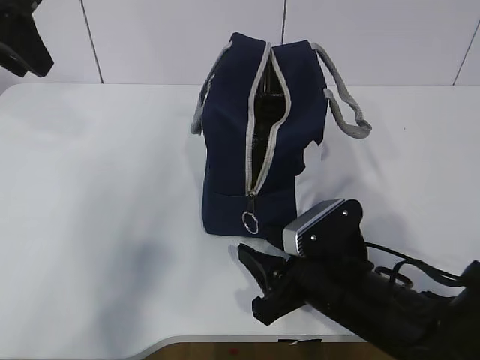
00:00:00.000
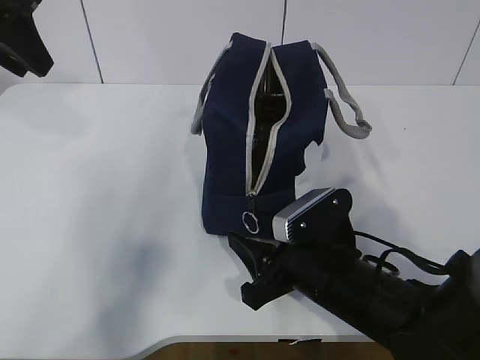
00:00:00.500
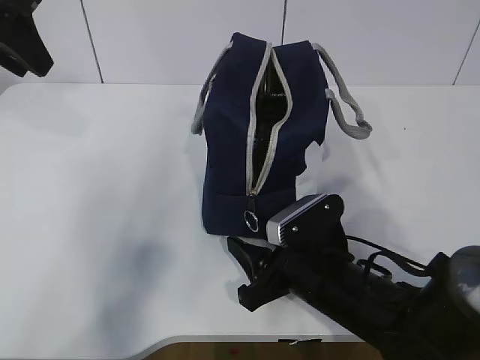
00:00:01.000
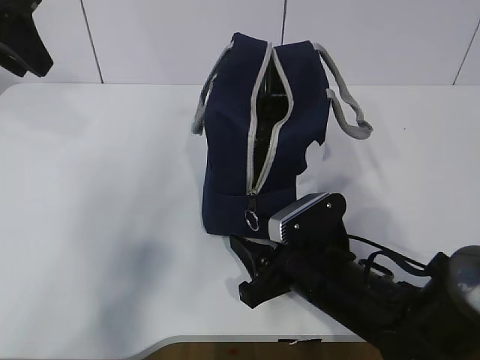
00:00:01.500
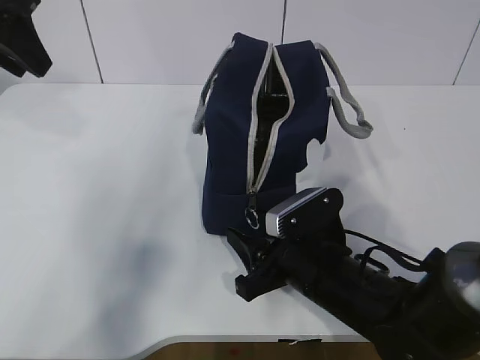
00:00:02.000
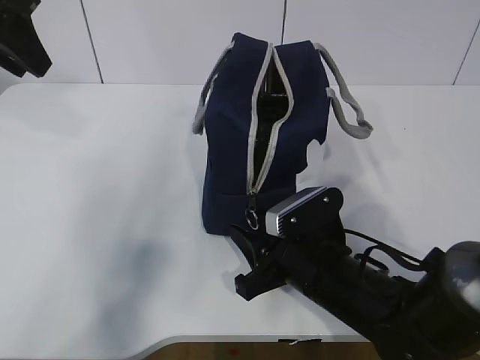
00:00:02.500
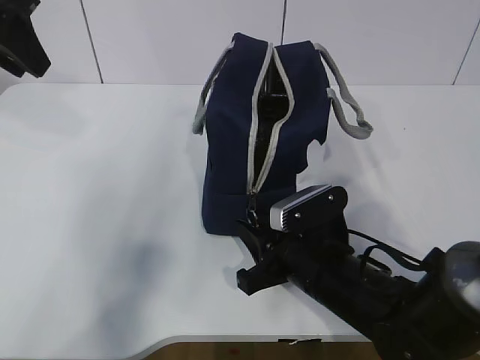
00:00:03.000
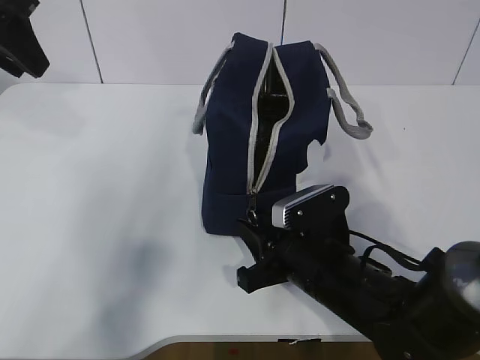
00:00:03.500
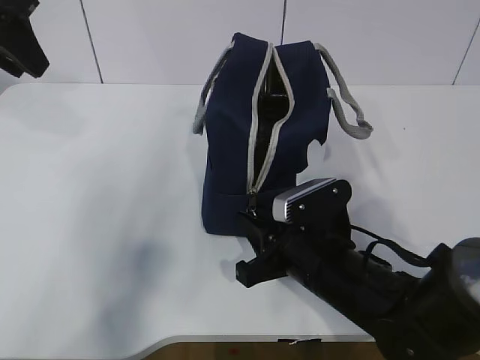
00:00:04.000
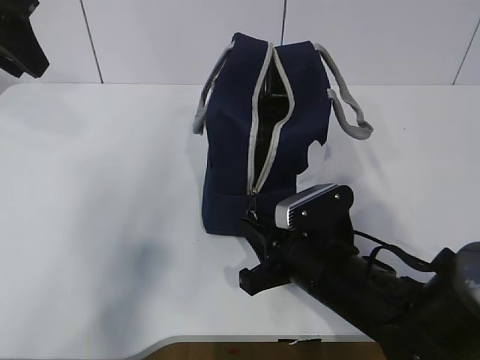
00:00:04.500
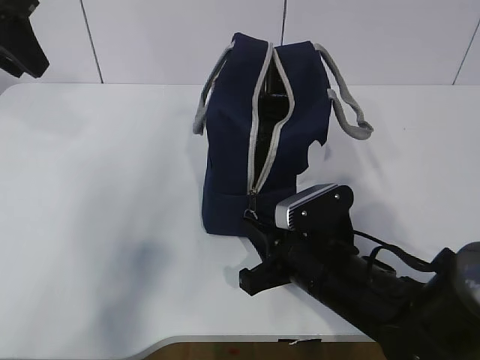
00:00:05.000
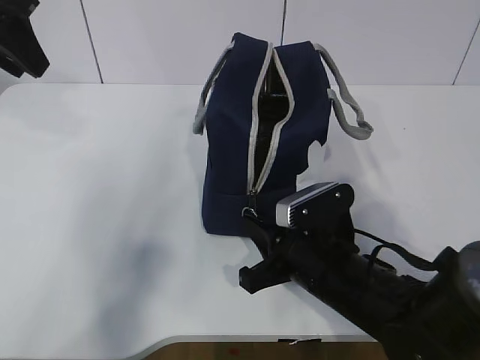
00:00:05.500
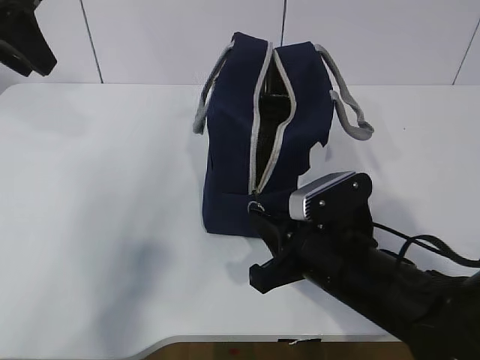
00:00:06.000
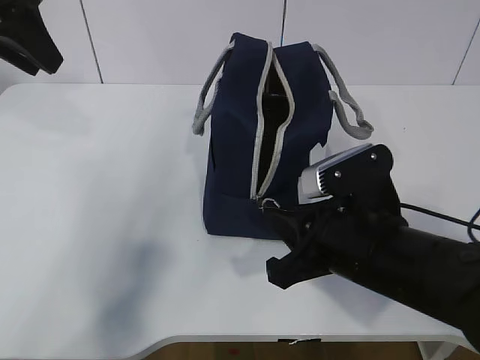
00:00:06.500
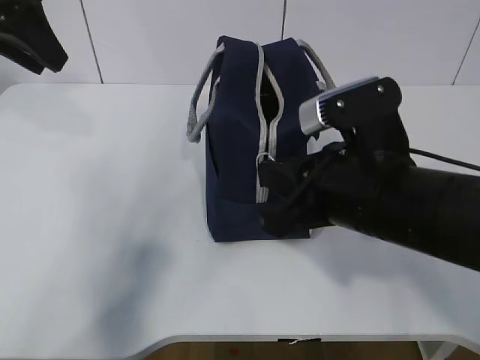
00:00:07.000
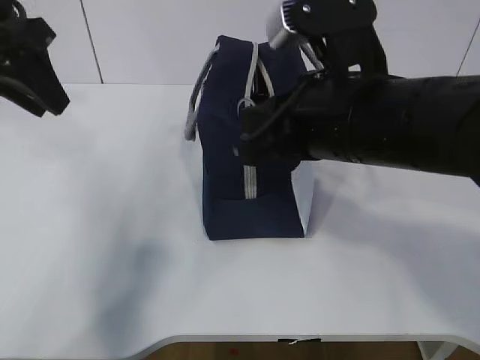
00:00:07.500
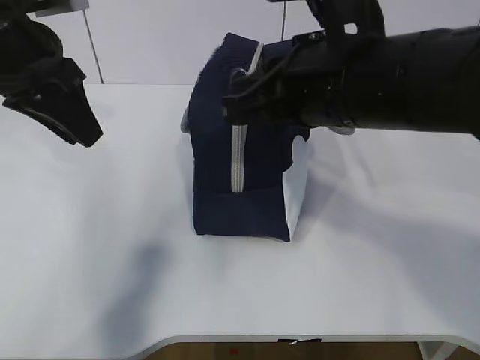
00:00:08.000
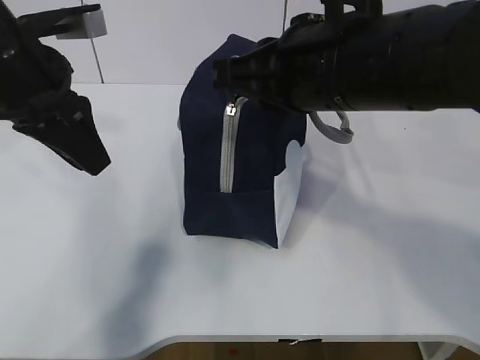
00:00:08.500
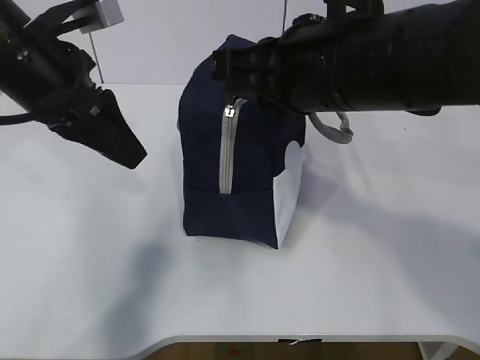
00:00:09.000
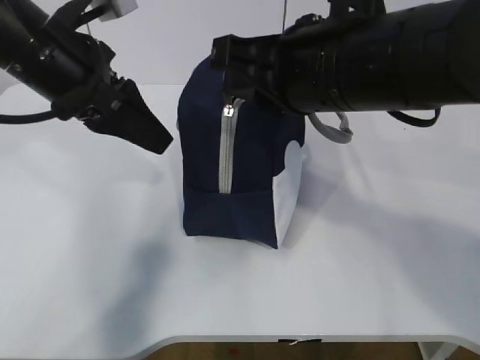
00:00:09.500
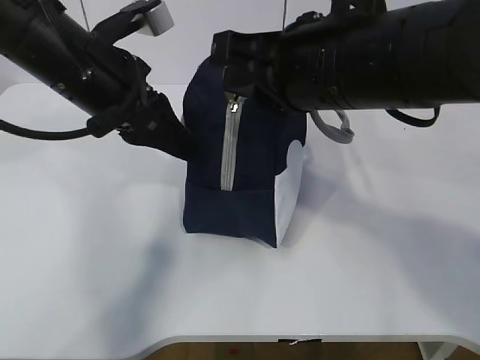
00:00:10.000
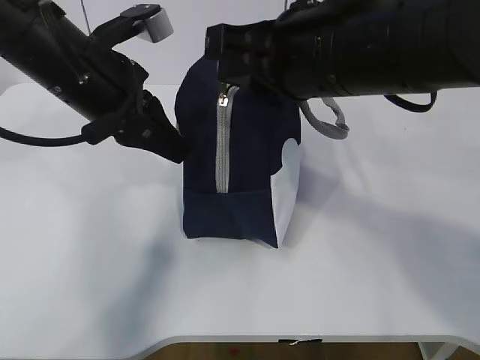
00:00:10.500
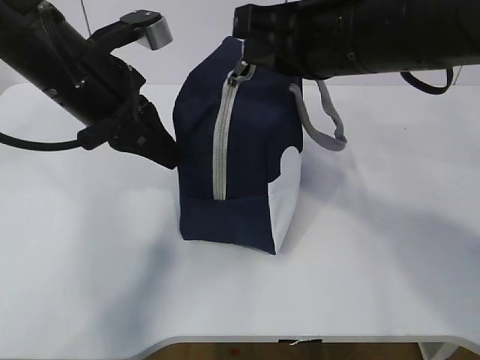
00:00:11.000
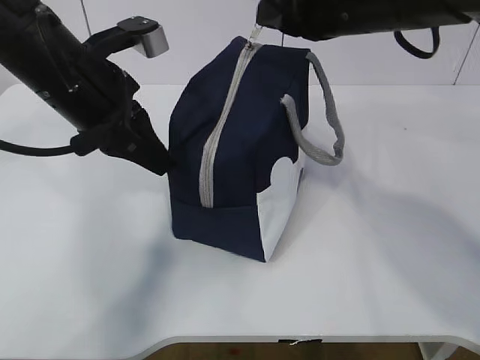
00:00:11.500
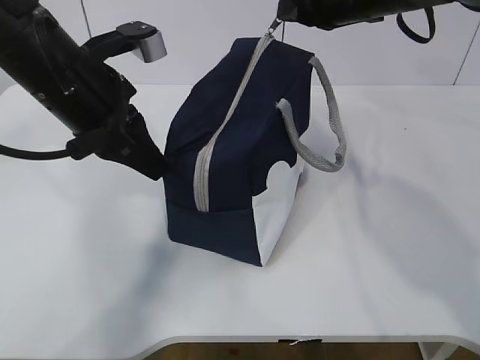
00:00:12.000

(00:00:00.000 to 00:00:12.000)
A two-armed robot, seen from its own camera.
Step, 00:00:03.000 - 00:00:06.500: Pull the zipper with your right hand.
00:00:00.000 - 00:00:02.000: There are only small adjustments of the grippers.
00:00:02.000 - 00:00:04.000: The right gripper closes.
00:00:04.000 - 00:00:06.000: The grippers move only a little.
00:00:06.000 - 00:00:08.000: The left gripper moves downward, roughly 5 cm. Meanwhile the right gripper heads upward, covering roughly 20 cm.
00:00:08.000 - 00:00:10.000: The left gripper is displaced to the right by about 5 cm.
00:00:10.000 - 00:00:12.000: The right gripper moves forward and to the right, some 15 cm. The left gripper closes its fingers.

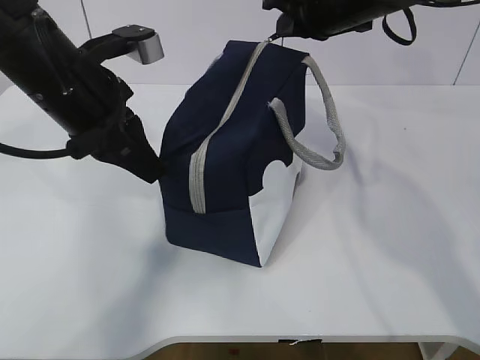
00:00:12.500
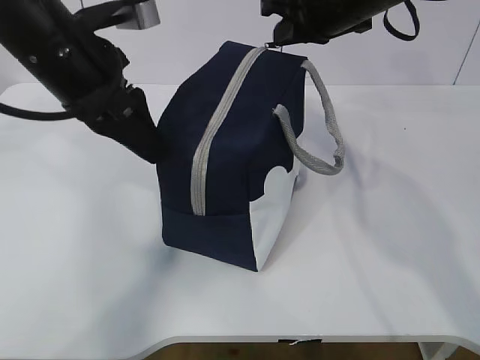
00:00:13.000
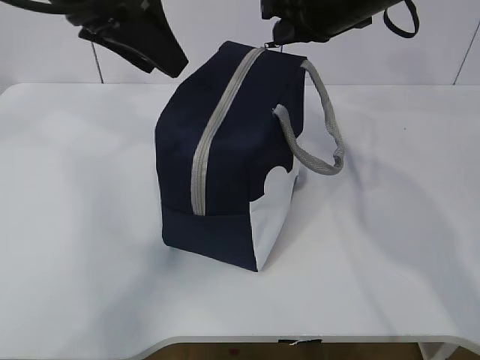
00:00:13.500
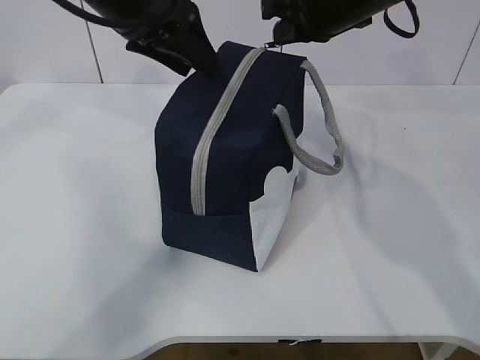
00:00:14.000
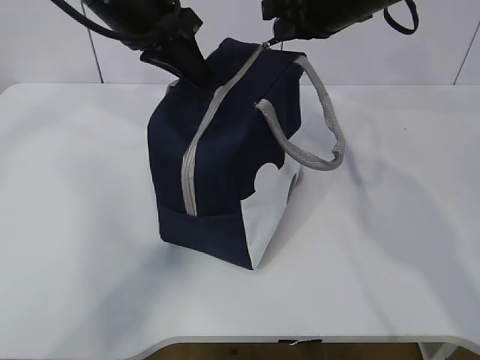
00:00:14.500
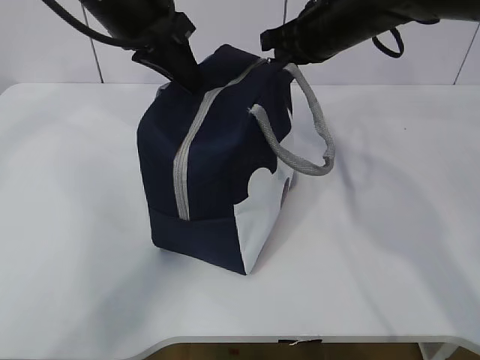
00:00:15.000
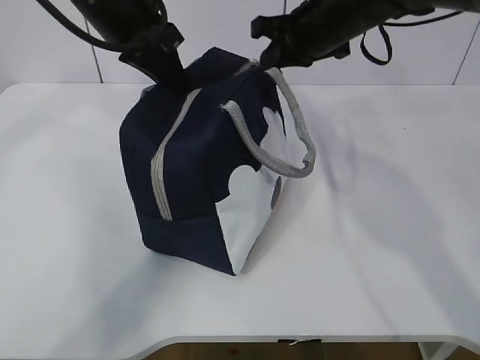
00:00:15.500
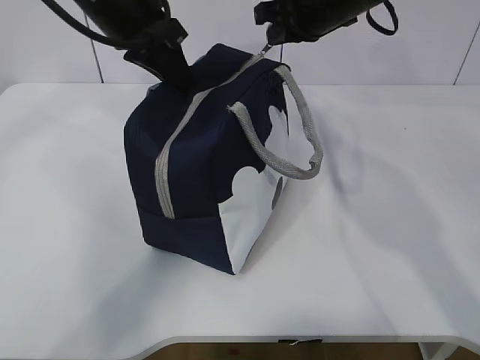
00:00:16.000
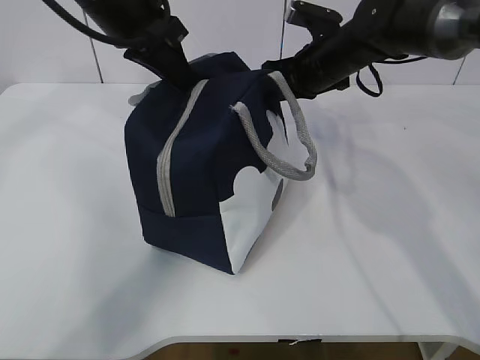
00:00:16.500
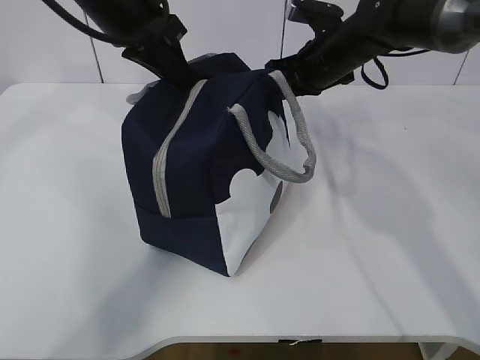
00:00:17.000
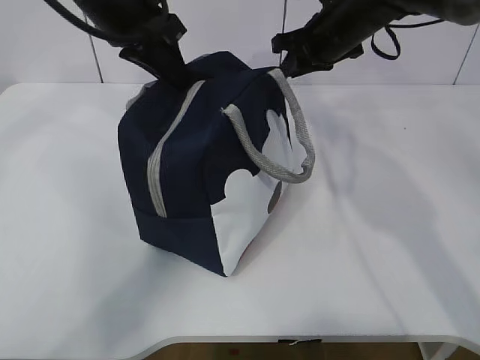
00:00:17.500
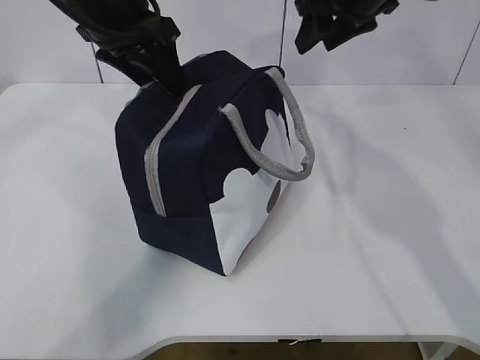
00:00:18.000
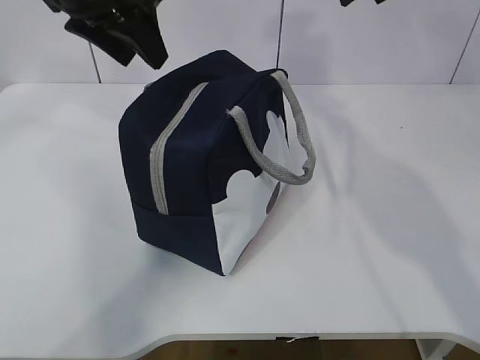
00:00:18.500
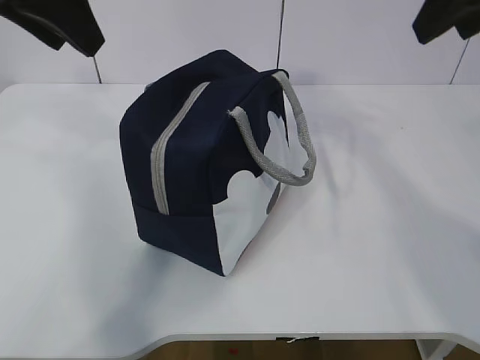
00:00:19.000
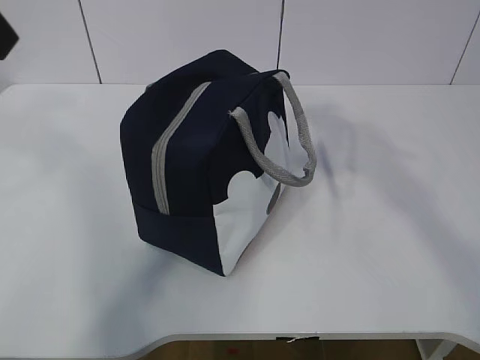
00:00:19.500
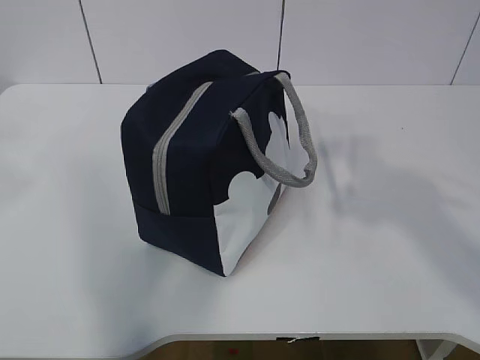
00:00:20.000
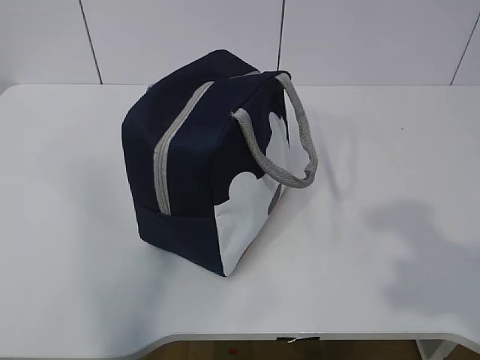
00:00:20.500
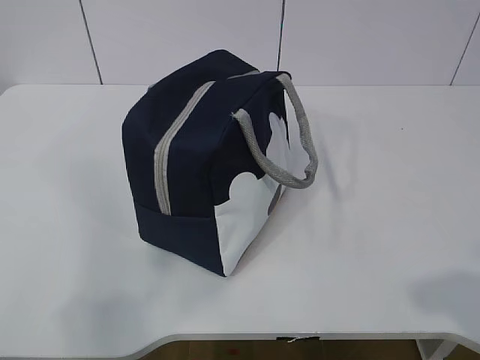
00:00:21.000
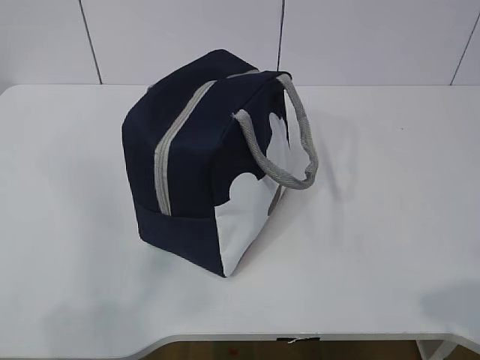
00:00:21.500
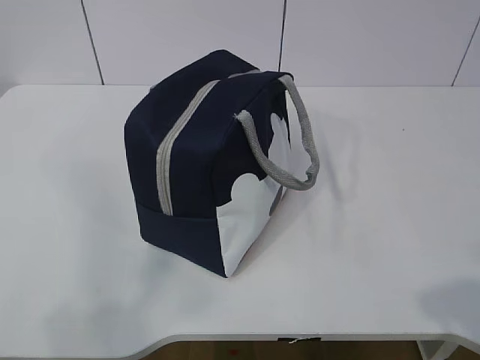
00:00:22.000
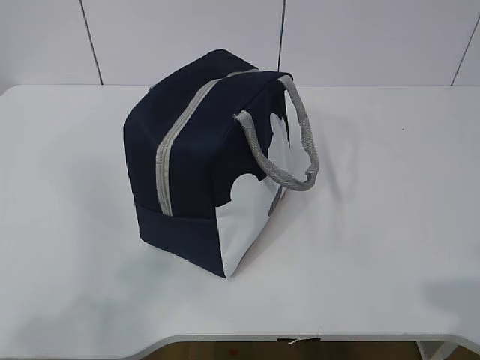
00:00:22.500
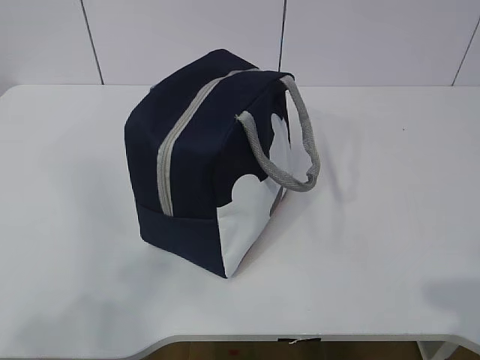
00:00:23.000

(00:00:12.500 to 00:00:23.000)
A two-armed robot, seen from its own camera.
00:00:12.500 - 00:00:14.500: The left gripper is displaced forward and upward by about 10 cm, and opens, then closes again.
00:00:14.500 - 00:00:16.500: The right gripper is displaced downward and forward by approximately 10 cm.
00:00:16.500 - 00:00:19.000: The right gripper travels backward and upward by roughly 30 cm, and opens; the left gripper is displaced backward, upward and to the left by about 10 cm, and opens up.
00:00:19.000 - 00:00:21.000: The left gripper moves backward and to the left, roughly 35 cm, while the right gripper travels backward and downward by roughly 35 cm.

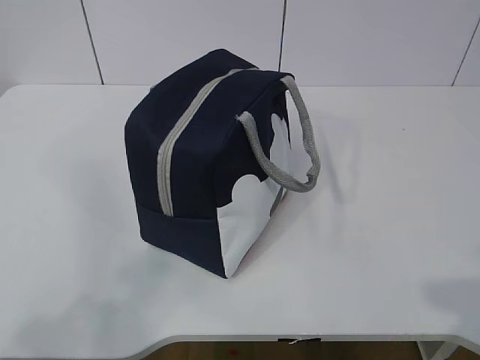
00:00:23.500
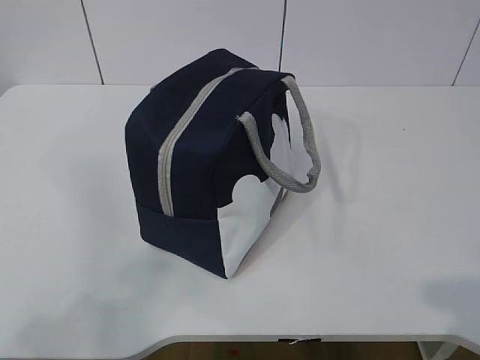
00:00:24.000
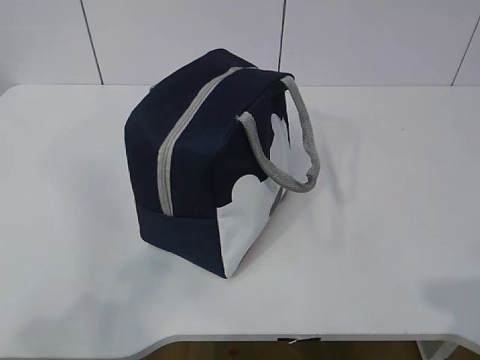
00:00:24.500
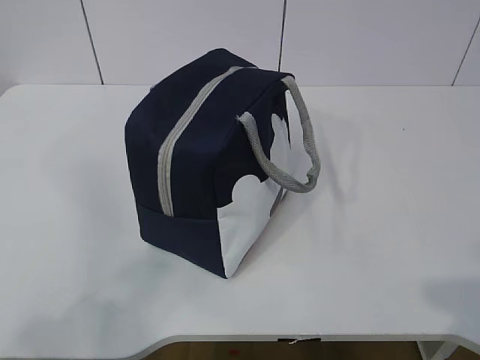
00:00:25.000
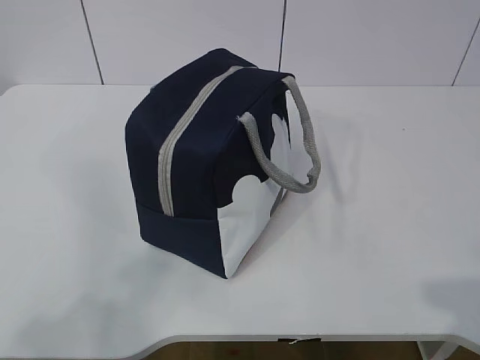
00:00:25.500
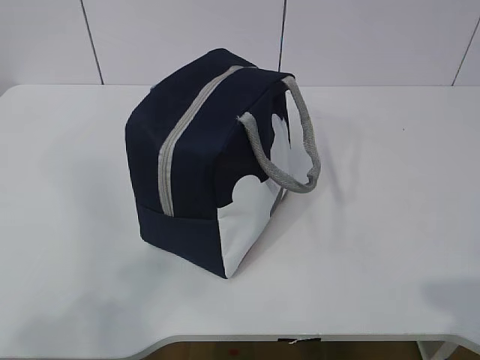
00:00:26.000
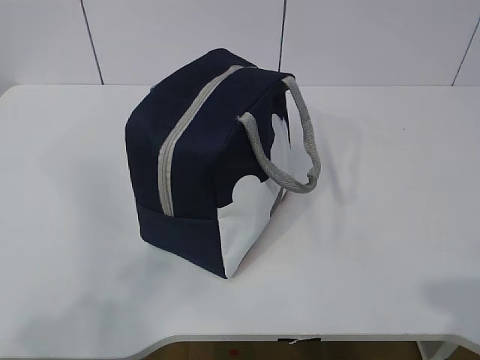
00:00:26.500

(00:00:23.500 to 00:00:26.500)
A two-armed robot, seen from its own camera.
00:00:23.500 - 00:00:26.500: Neither gripper changes place.
